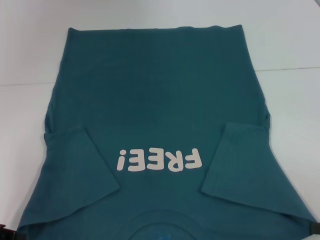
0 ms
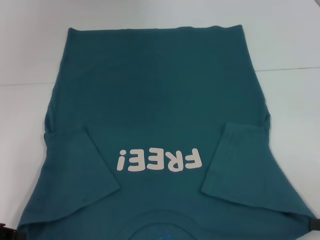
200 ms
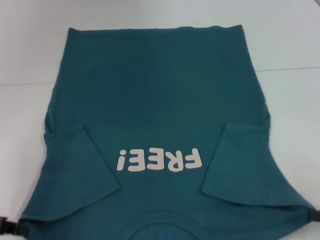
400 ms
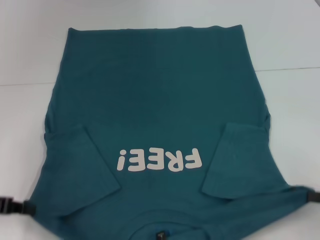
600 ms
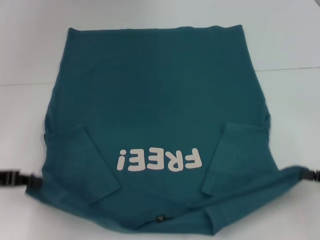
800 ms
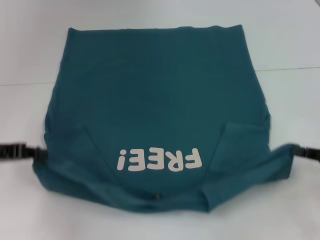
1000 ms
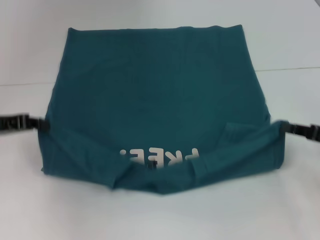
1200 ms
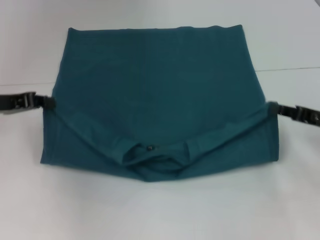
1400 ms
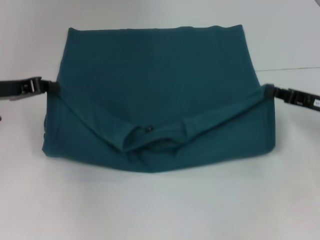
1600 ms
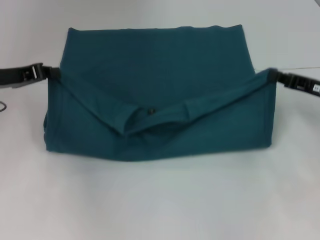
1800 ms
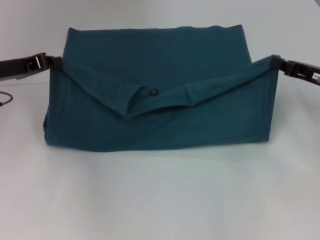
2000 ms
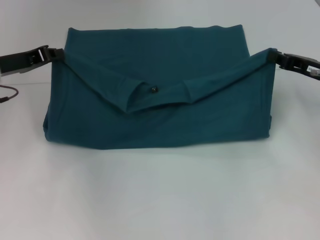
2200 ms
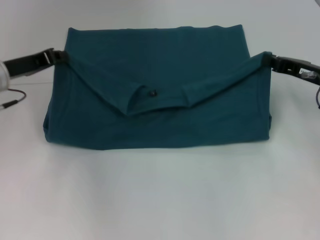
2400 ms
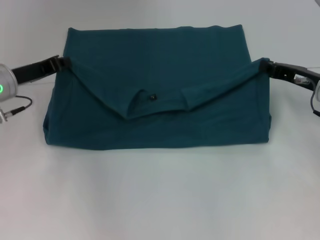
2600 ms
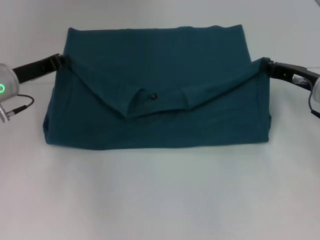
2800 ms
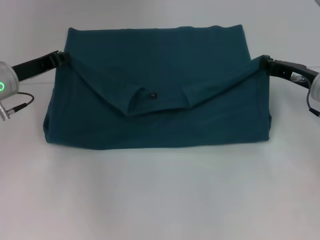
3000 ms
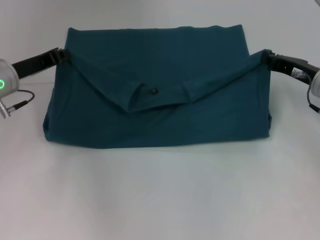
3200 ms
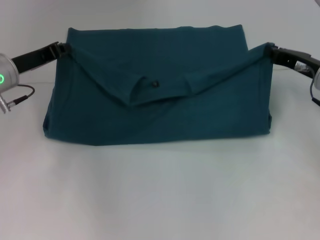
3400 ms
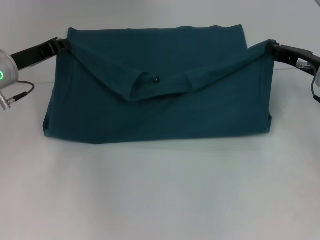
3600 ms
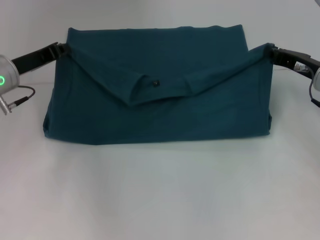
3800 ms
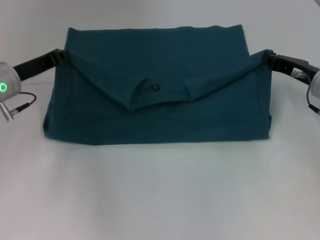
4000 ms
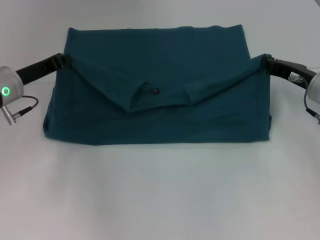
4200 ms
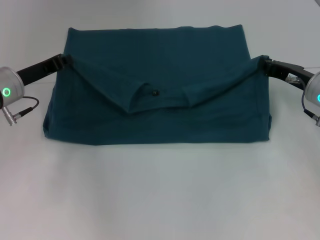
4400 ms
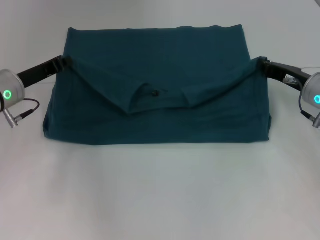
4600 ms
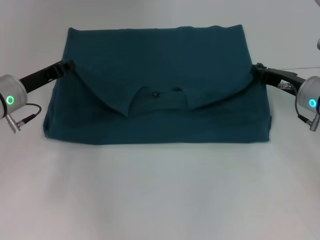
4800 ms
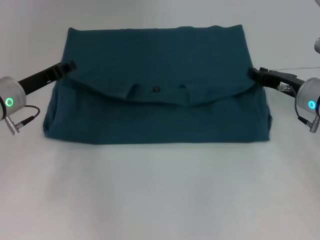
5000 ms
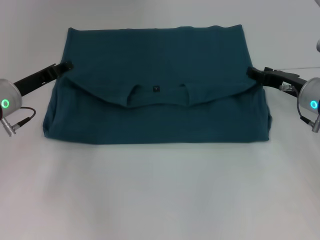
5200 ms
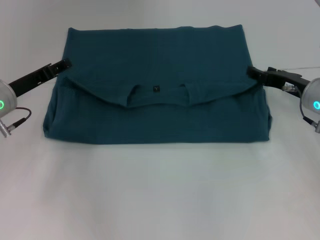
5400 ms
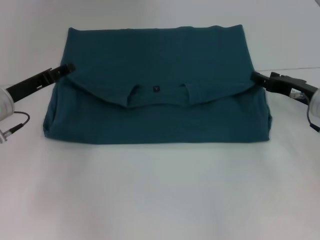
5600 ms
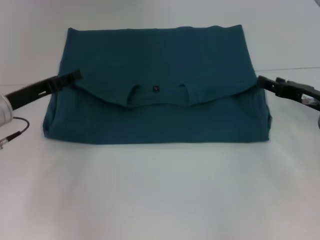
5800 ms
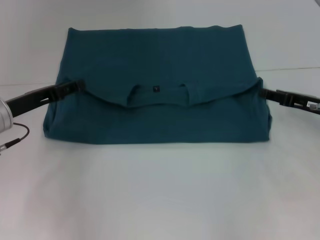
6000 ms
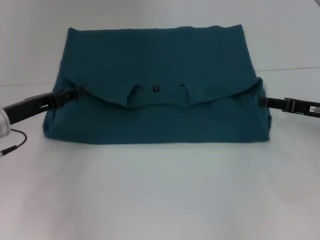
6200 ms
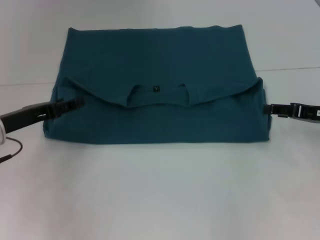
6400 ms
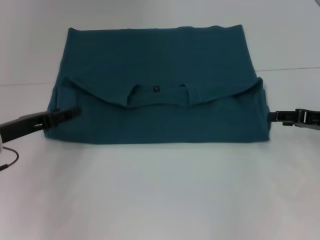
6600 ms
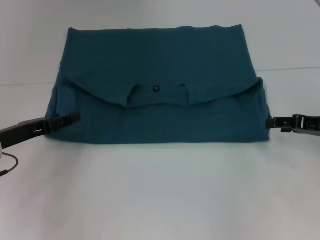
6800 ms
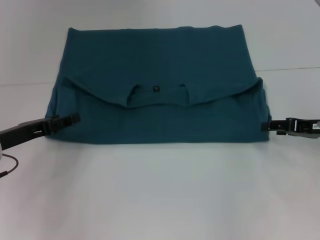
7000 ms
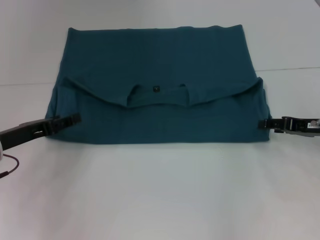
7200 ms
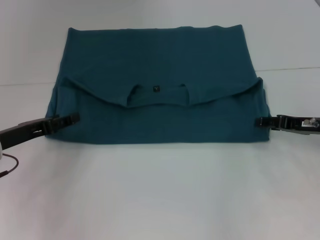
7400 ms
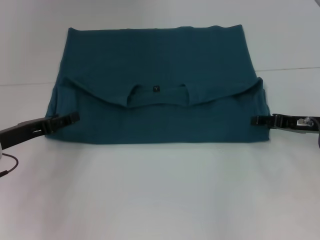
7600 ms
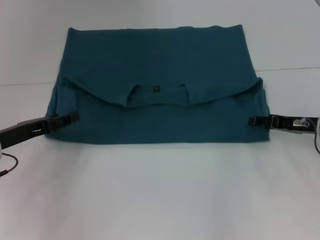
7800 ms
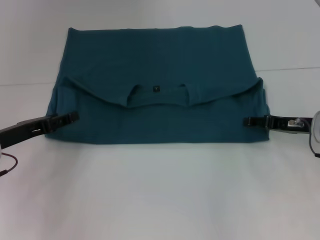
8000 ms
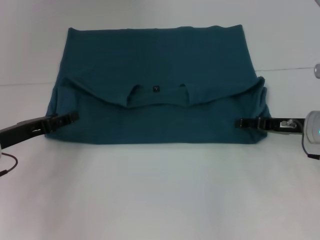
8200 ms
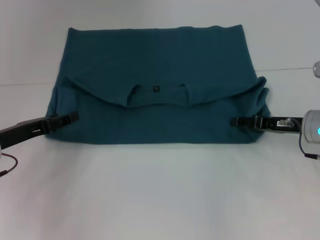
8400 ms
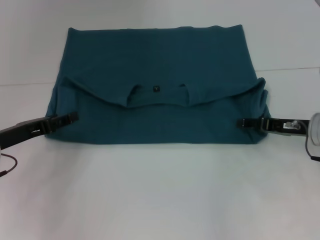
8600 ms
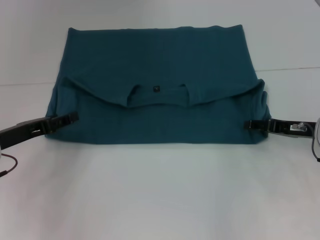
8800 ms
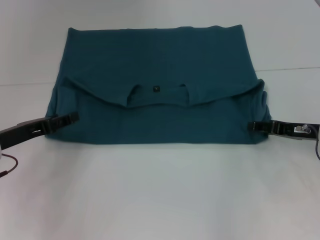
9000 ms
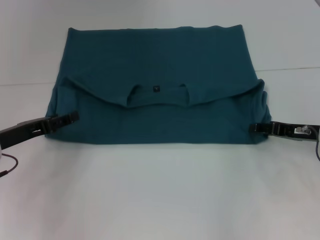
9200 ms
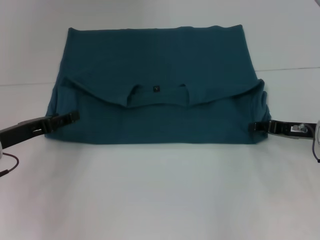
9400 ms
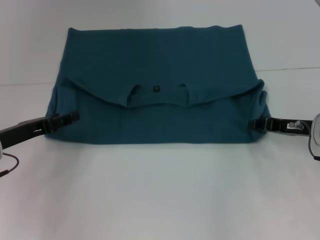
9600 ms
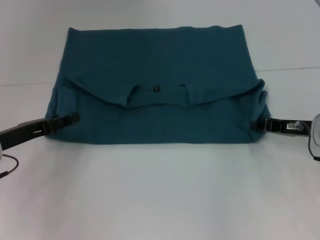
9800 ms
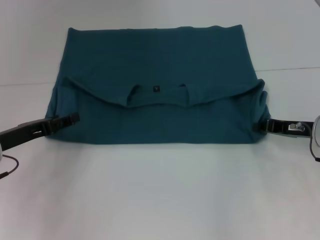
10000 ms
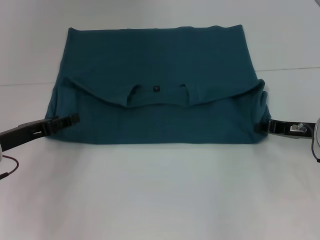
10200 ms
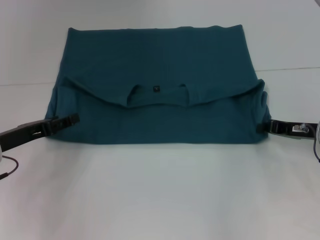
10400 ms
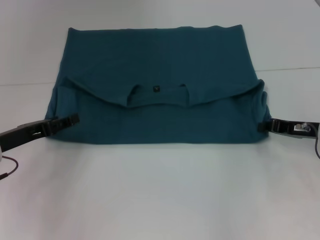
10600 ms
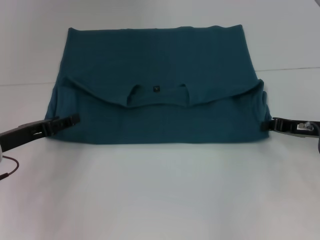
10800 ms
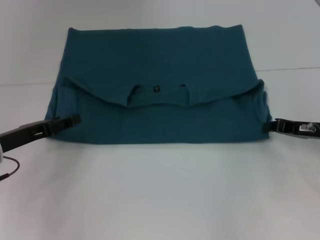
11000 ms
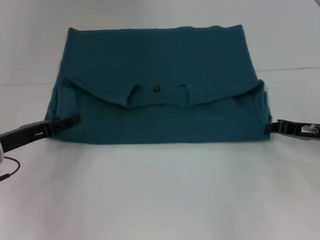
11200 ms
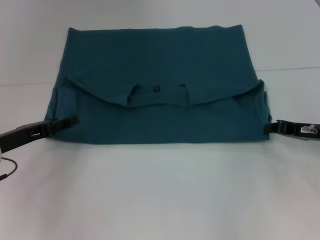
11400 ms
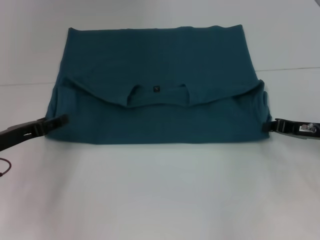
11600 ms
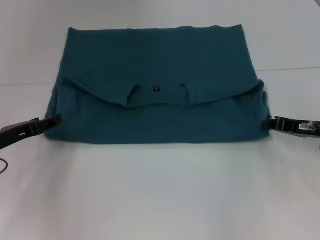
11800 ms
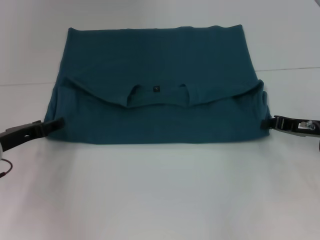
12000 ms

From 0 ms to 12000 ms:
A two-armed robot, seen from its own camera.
Step, from 0 ms to 5000 ms: Fold the clothes to the left.
Step, from 0 ms to 5000 ms: Fold the clothes to the right.
From 0 ms to 1600 ms: The right gripper travels forward and to the left by some 15 cm. The left gripper is displaced forward and upward by some 15 cm.
From 1600 ms to 3000 ms: The right gripper heads forward, covering about 5 cm. The left gripper shifts by roughly 5 cm.
From 3000 ms to 4400 ms: The grippers move only a little.
From 4400 ms to 6000 ms: The right gripper changes place by approximately 5 cm, and opens its fingers; the left gripper opens up.
From 6000 ms to 9000 ms: There are only small adjustments of the grippers.
From 10400 ms to 12000 ms: The grippers move only a little.

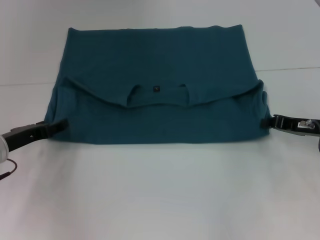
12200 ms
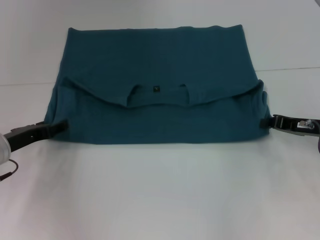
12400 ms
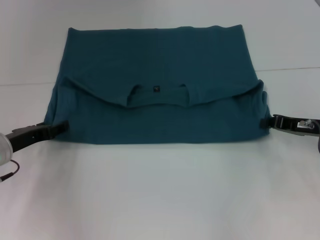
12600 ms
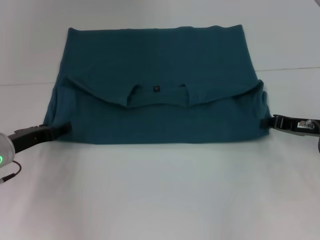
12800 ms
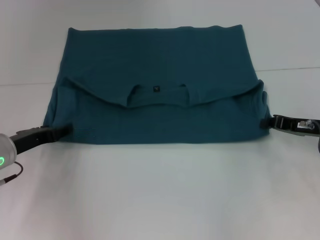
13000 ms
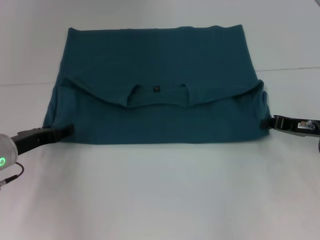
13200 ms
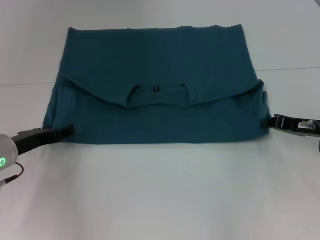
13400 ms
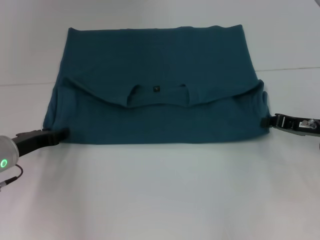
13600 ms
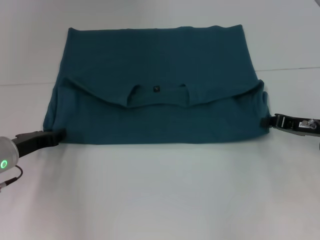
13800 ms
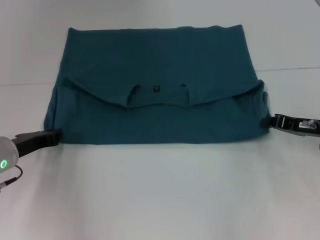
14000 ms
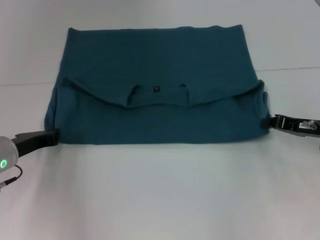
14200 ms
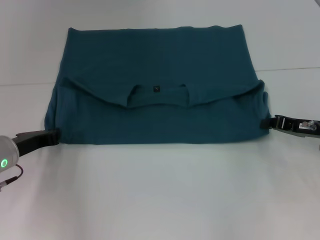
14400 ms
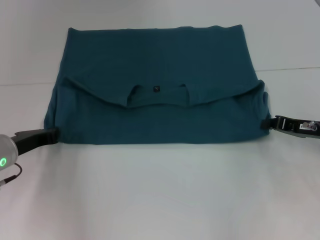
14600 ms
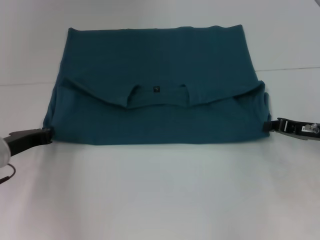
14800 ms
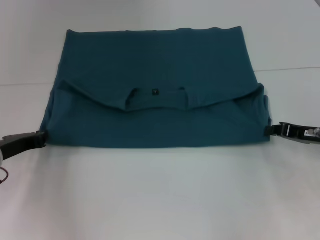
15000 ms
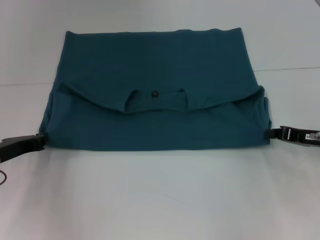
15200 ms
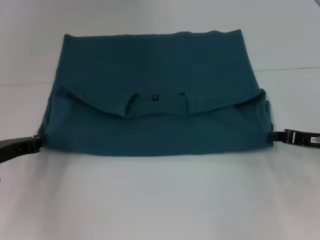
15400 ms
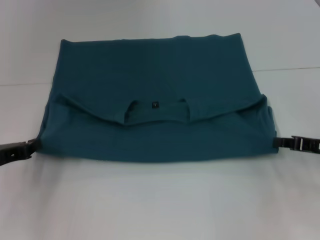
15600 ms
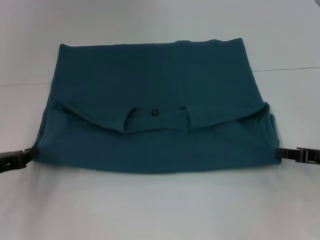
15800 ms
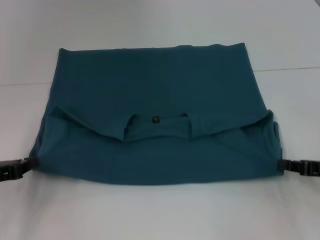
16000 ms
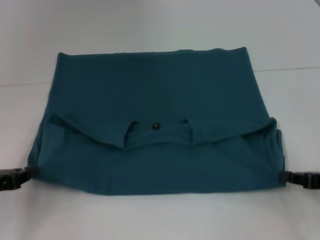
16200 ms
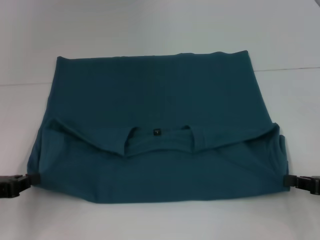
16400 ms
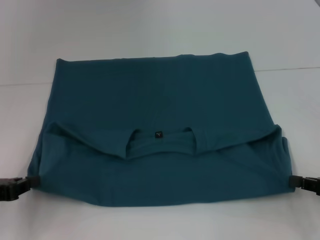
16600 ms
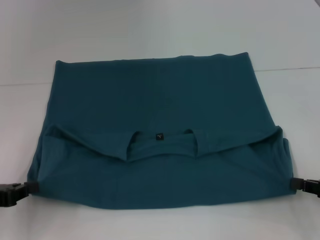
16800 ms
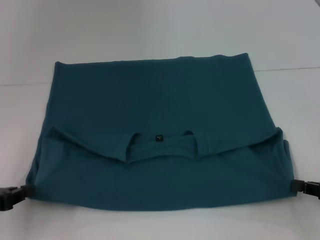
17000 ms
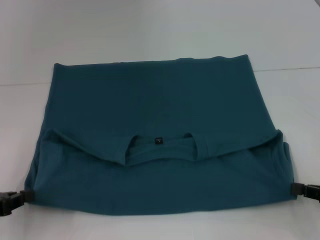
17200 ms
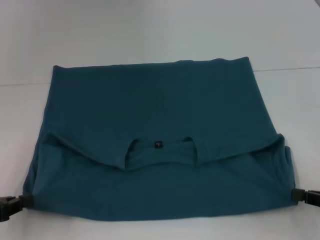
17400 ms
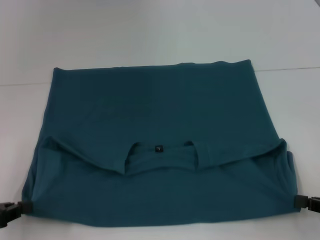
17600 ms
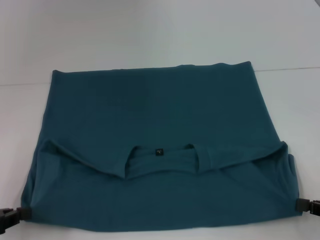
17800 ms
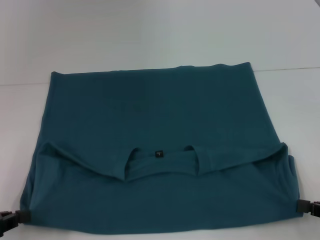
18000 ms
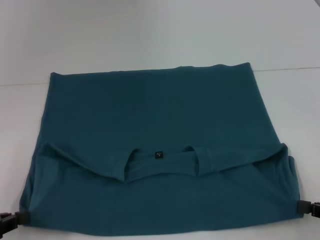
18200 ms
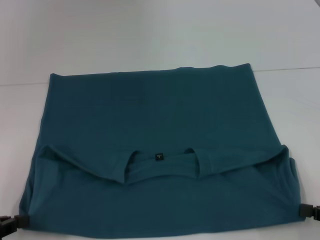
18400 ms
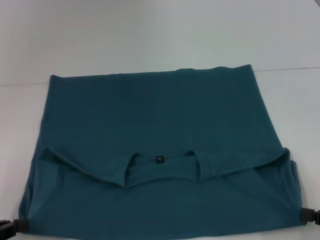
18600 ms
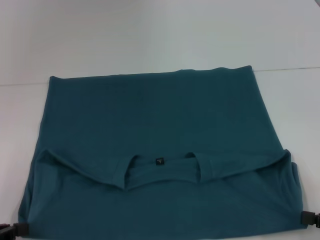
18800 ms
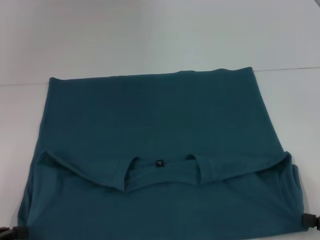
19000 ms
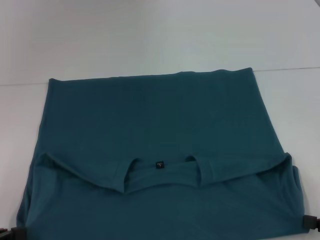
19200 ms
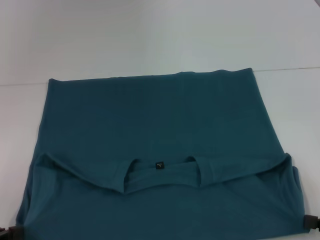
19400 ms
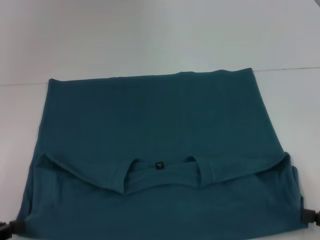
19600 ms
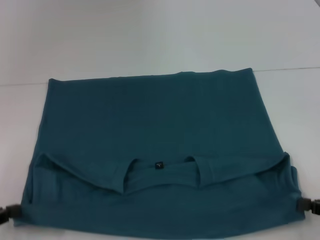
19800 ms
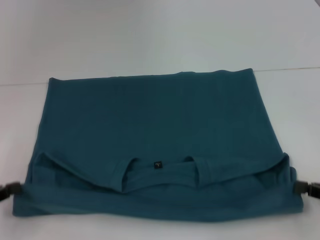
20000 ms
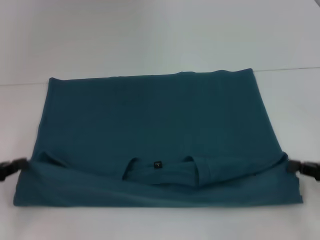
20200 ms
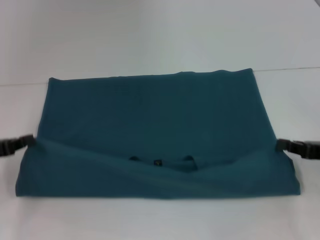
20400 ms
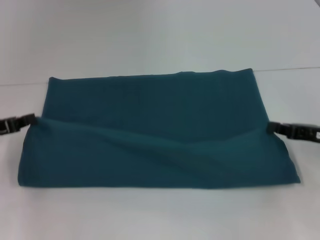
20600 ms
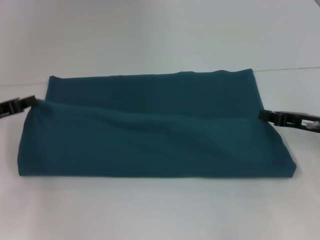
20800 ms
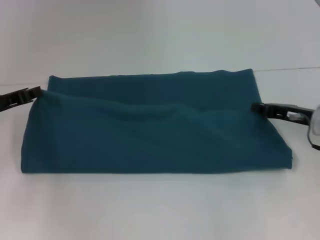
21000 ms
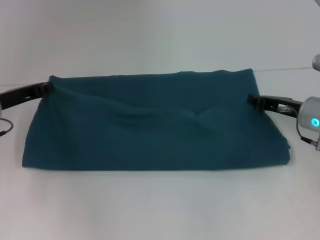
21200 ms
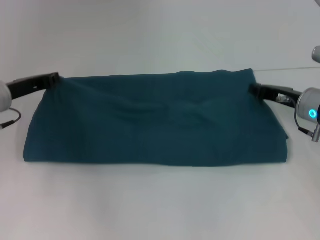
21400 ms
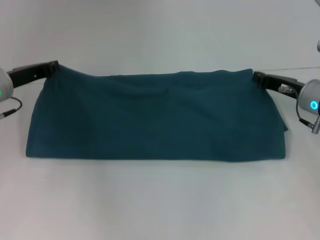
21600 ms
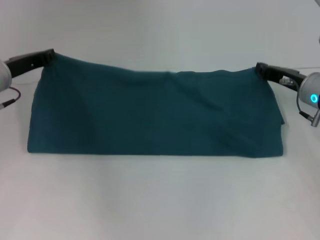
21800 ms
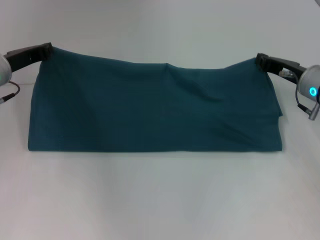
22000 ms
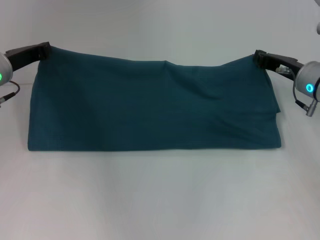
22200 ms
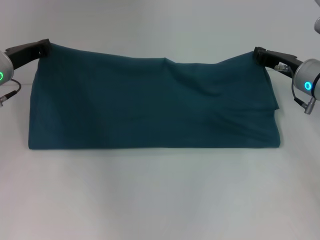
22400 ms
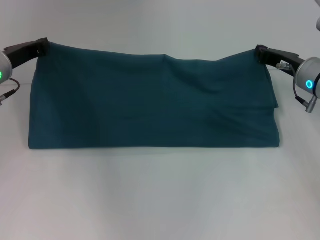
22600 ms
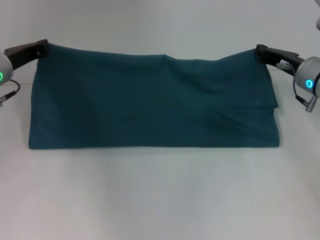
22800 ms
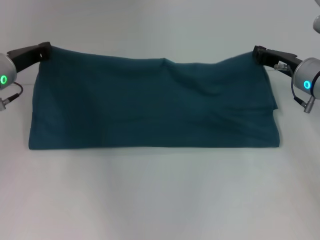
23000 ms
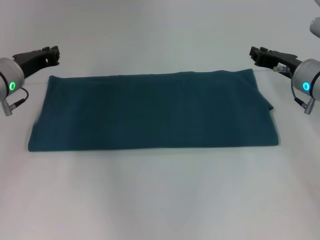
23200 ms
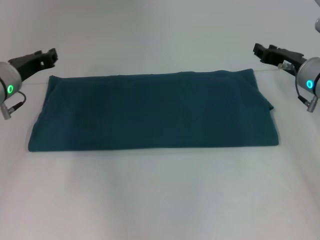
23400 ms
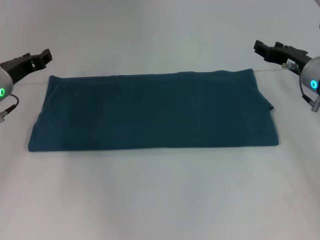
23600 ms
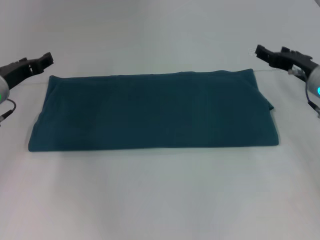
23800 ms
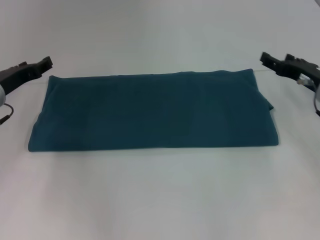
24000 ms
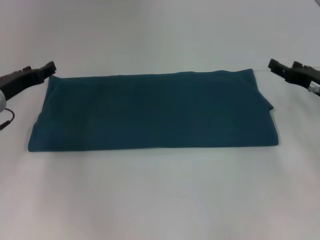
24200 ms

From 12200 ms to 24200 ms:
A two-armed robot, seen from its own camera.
Step, from 12200 ms to 19200 ms: Pull the clothes with your left hand.
Step, from 12200 ms to 19200 ms: Pull the clothes with your right hand.
Step, from 19400 ms to 24000 ms: Fold the clothes to the left.
Step, from 19400 ms to 24000 ms: Fold the clothes to the right.
From 12200 ms to 13800 ms: There are only small adjustments of the grippers.
From 13800 ms to 15200 ms: The left gripper closes up.
From 15200 ms to 16600 ms: The grippers both shift backward by about 10 cm.
From 18200 ms to 19800 ms: There are only small adjustments of the grippers.
From 19800 ms to 21200 ms: The right gripper is displaced forward and to the left by about 20 cm, while the left gripper goes some 20 cm forward and to the right.
From 21200 ms to 22600 ms: The right gripper moves some 5 cm; the left gripper ends up roughly 5 cm from where it was.
From 22600 ms to 24200 ms: The left gripper shifts by roughly 5 cm, and opens up; the right gripper changes place by some 5 cm, and opens up.
